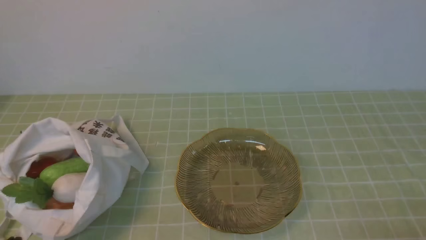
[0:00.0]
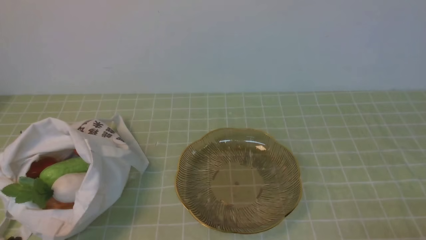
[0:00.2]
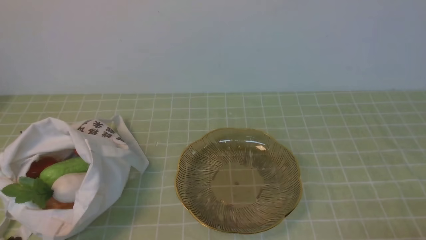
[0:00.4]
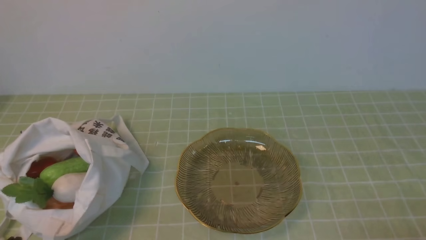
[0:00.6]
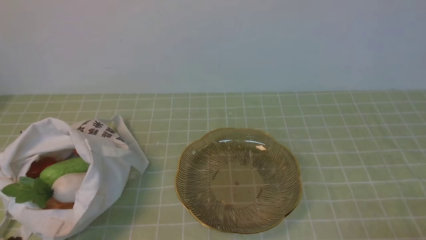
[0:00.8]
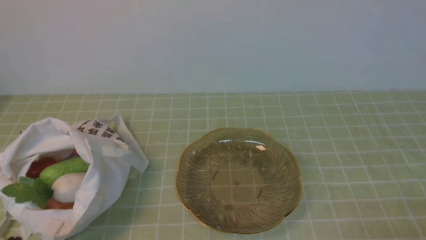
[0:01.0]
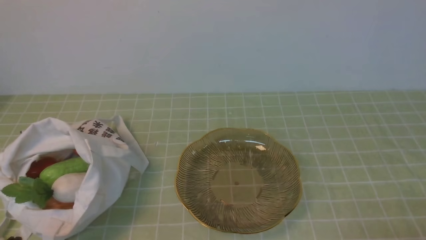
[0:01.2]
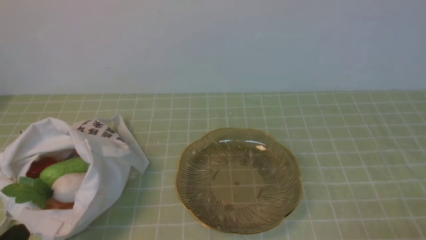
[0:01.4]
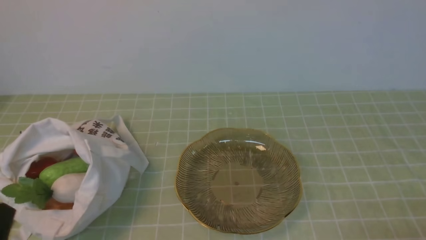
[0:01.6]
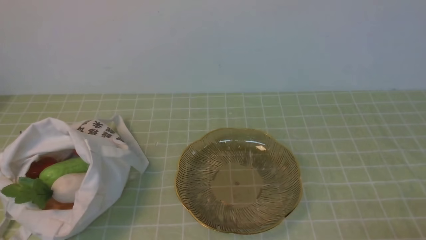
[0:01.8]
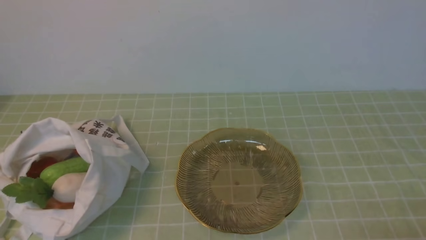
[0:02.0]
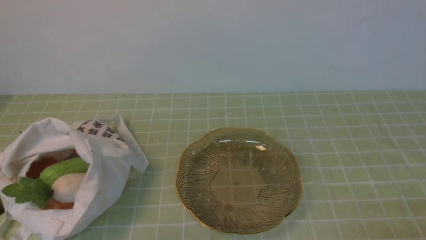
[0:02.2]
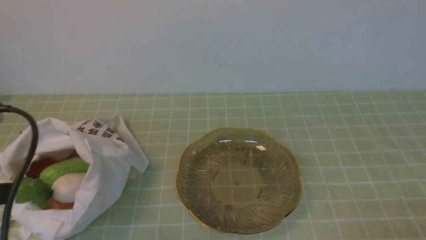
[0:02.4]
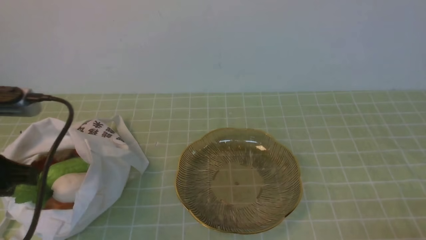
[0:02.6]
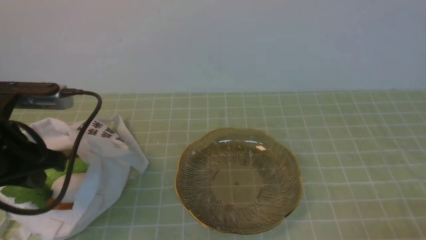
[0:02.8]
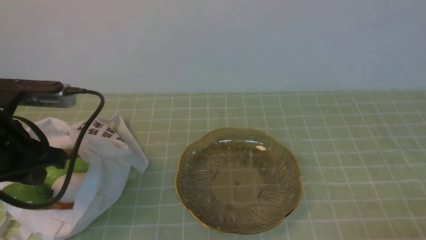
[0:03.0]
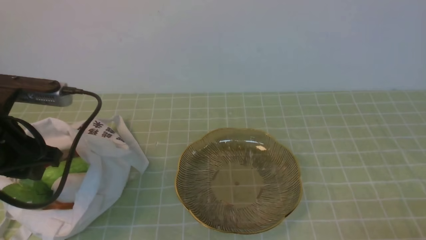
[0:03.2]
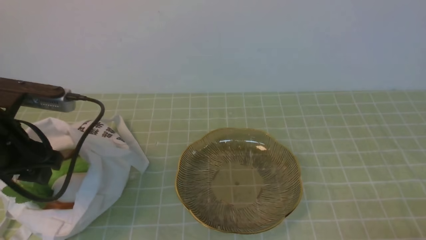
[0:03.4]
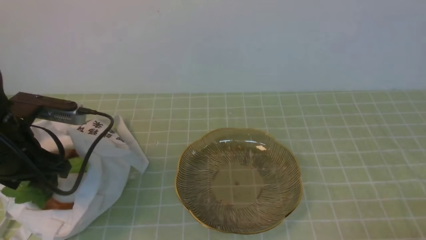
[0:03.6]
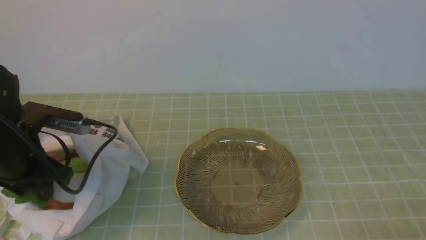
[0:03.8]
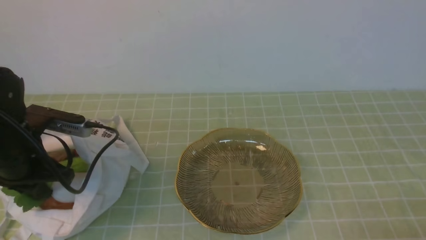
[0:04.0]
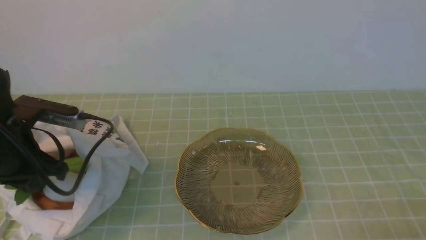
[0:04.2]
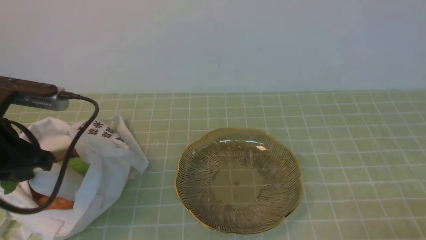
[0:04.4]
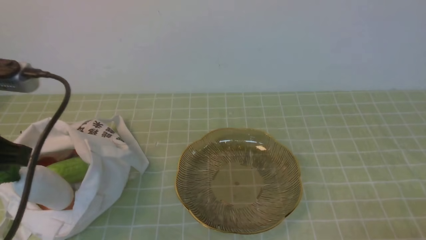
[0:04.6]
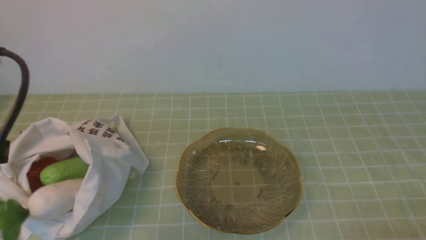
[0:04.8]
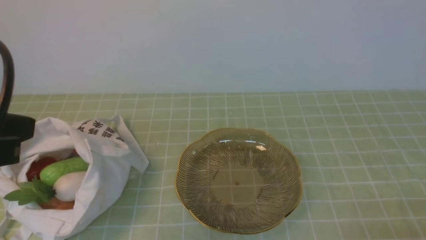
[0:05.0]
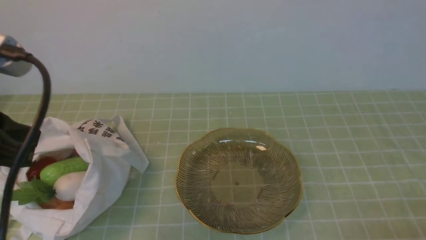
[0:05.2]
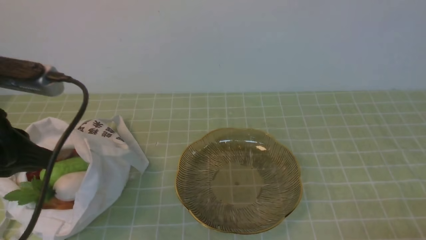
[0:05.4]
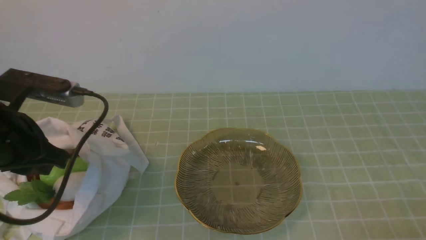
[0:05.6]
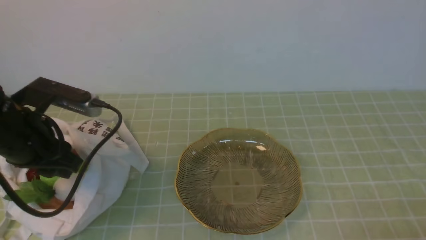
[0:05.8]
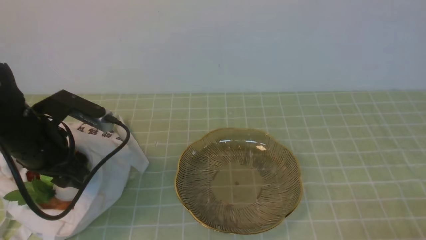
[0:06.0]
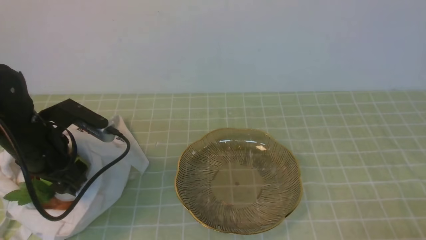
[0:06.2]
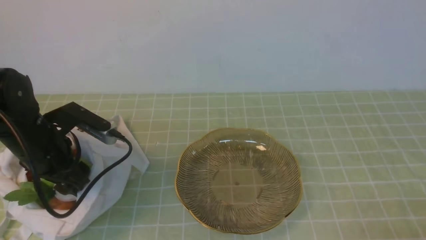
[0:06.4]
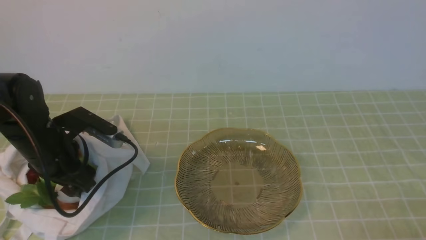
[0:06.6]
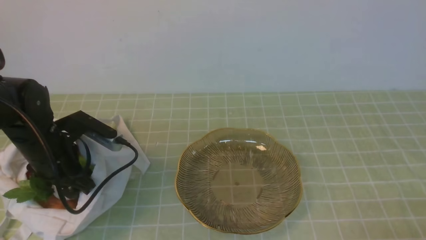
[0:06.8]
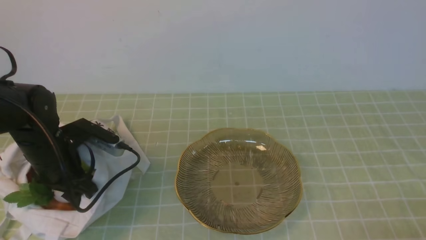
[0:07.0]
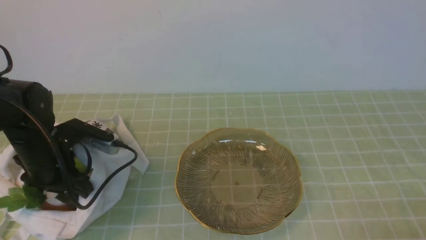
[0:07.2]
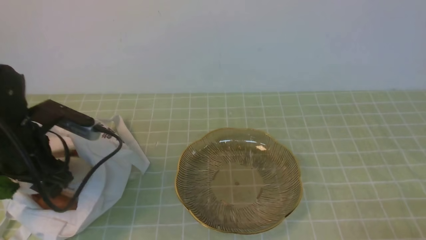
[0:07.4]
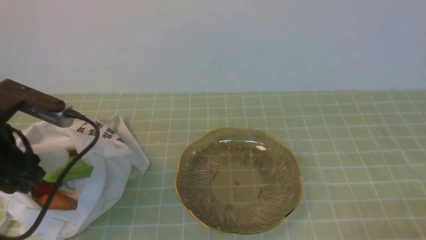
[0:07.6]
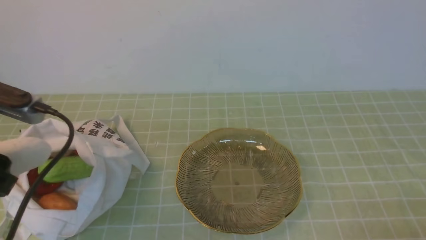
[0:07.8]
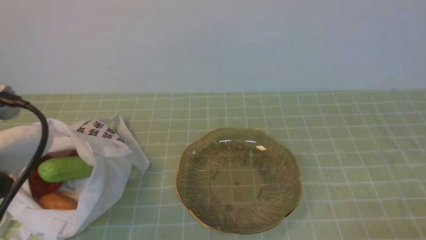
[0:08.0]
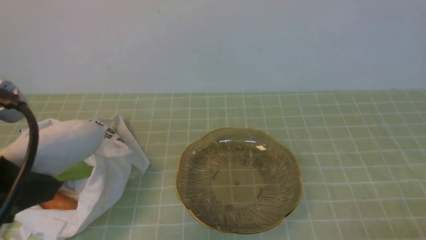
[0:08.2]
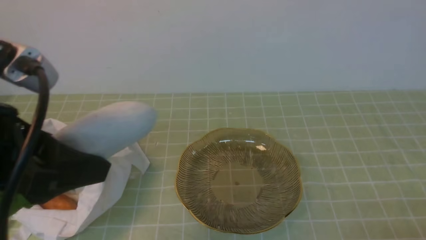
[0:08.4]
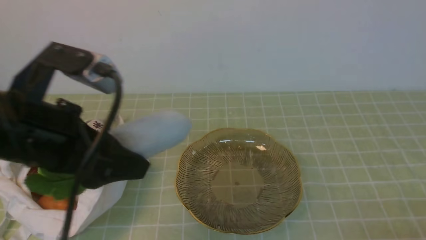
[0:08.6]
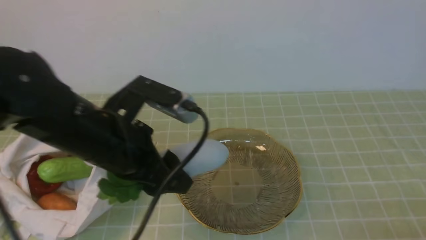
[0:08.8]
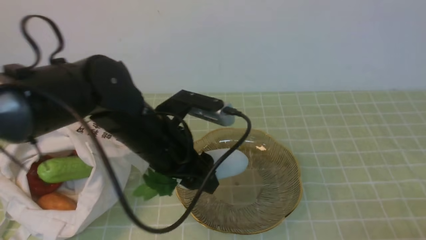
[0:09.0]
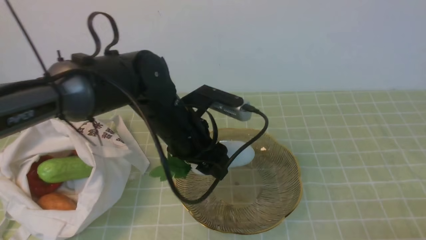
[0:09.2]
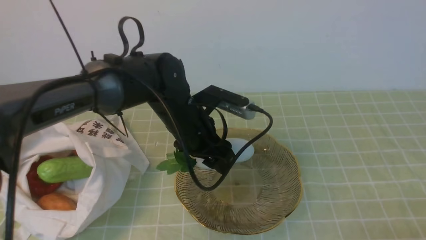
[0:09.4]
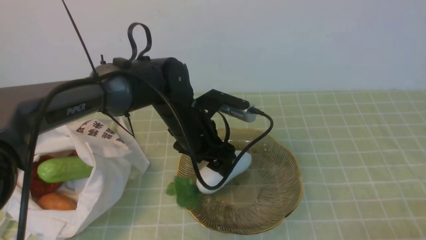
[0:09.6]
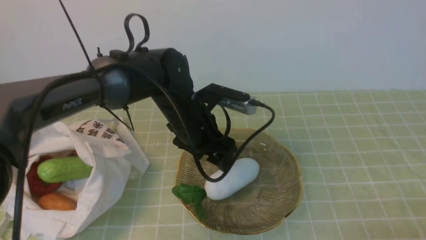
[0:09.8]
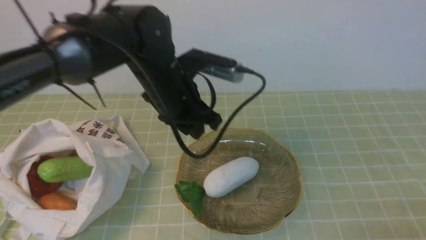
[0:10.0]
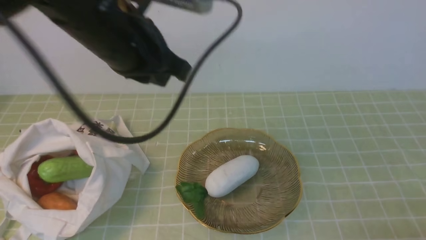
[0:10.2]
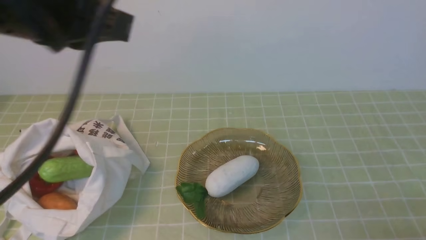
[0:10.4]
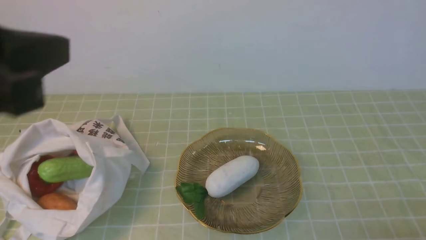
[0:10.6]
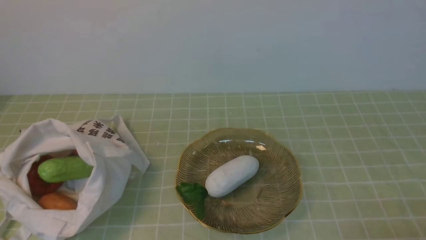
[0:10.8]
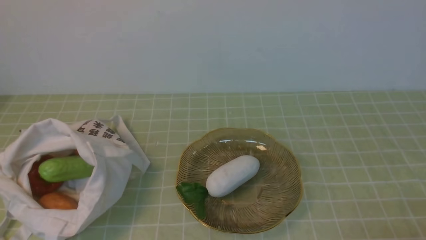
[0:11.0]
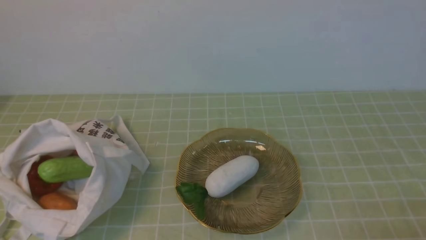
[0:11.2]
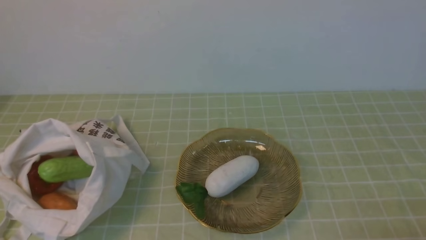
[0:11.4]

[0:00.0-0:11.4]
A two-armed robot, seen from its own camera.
Task of the whole recording: take vegetables from bag on green coffee tablecloth place on plate.
Step, 0:00.0 to 0:07.0: Grasp the radish with left gripper.
Step, 0:07.2 to 0:09.8: Place the radish on the plate with left gripper.
0:01.4 to 0:02.8: The left gripper moves forward and upward, some 20 cm.
0:02.8 to 0:04.2: The left gripper opens, then closes again.
0:04.2 to 0:05.6: The left gripper moves some 10 cm upward and comes back.
0:05.6 to 0:07.2: The left gripper travels downward and forward by roughly 10 cm, and opens up.
0:07.2 to 0:08.6: The left gripper moves upward, to the right and backward, roughly 20 cm.
0:08.6 to 0:10.0: The left gripper goes some 15 cm forward and to the right, and closes its fingers.
0:10.0 to 0:11.4: The left gripper heads backward and to the left, covering some 35 cm, and closes its fingers.

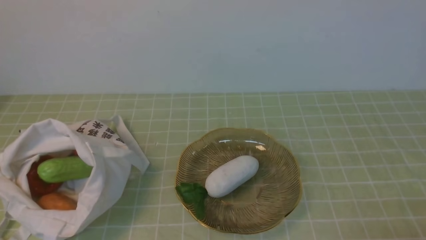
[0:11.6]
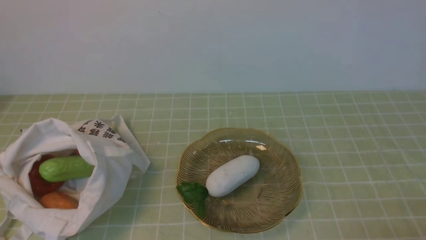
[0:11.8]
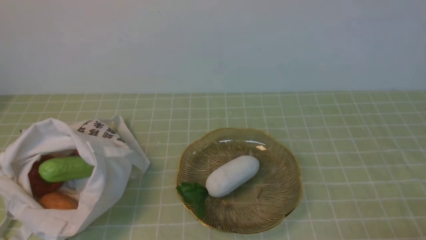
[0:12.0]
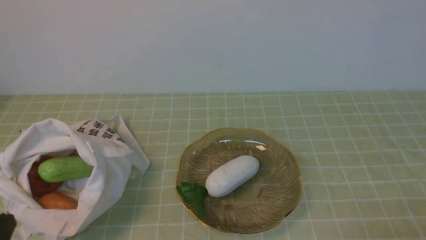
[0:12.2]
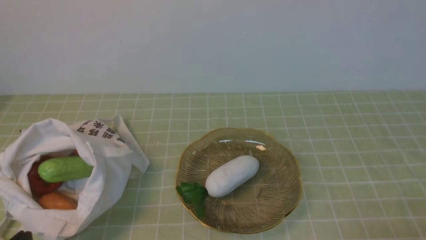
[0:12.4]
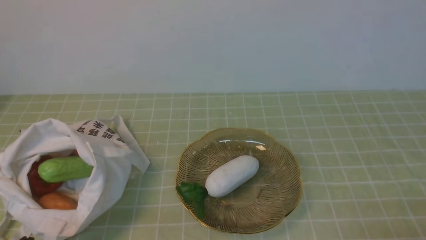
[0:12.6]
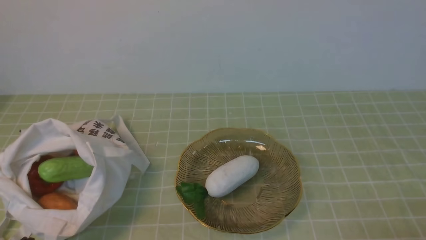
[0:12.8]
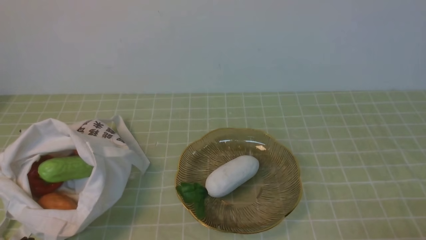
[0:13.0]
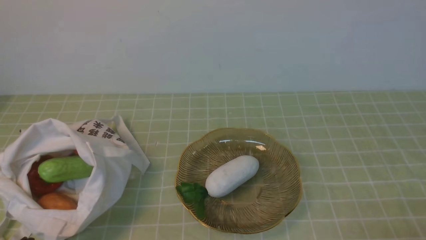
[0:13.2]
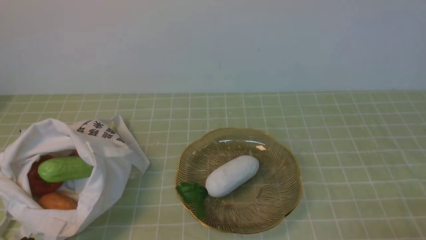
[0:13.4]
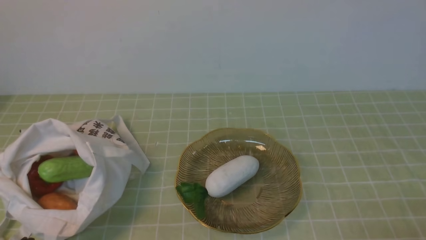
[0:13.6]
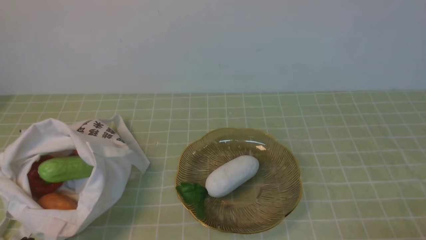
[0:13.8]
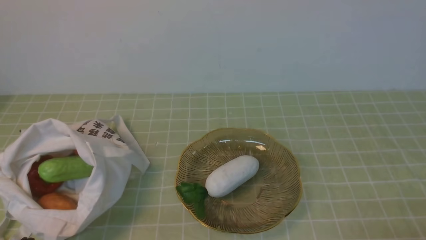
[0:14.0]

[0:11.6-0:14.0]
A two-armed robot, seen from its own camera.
Task of the whole recording: take vegetables from bag on green coffee tablecloth place on plate.
0:12.8 to 0:14.0: The two grippers keep their place.

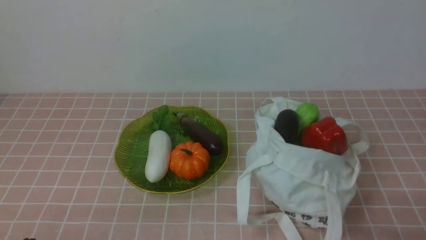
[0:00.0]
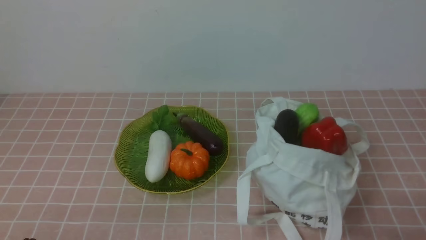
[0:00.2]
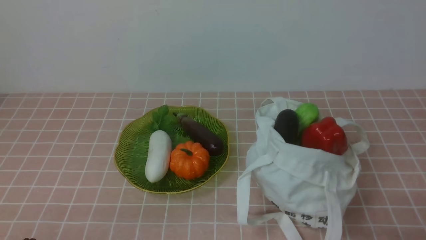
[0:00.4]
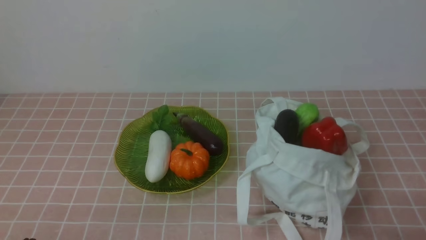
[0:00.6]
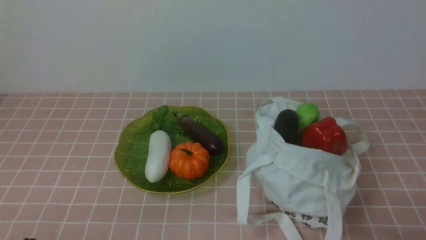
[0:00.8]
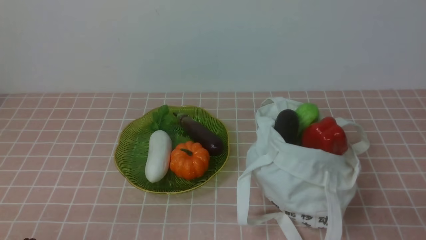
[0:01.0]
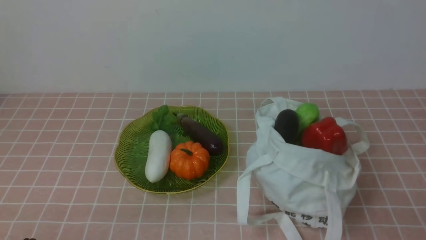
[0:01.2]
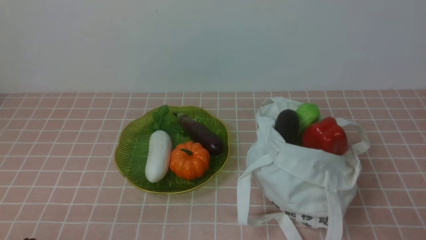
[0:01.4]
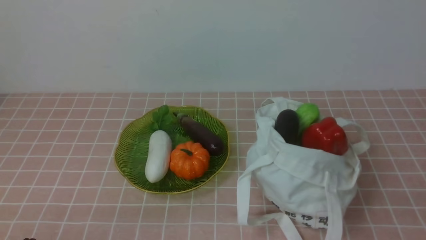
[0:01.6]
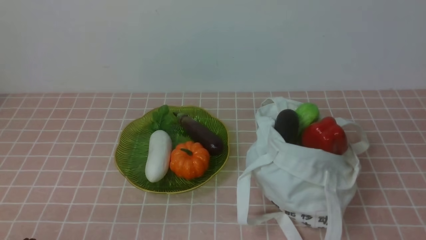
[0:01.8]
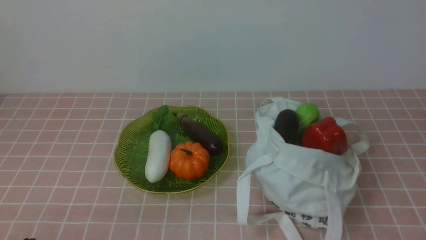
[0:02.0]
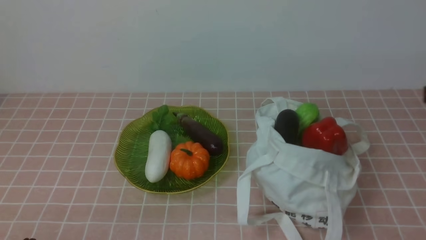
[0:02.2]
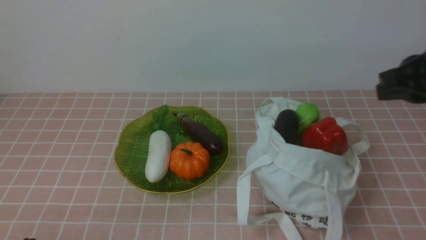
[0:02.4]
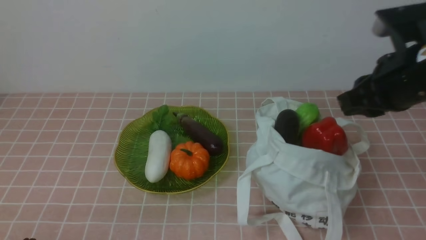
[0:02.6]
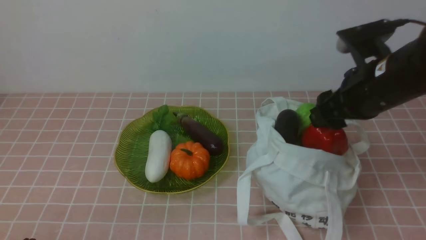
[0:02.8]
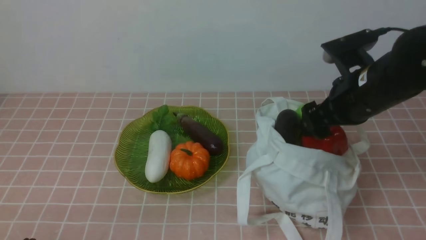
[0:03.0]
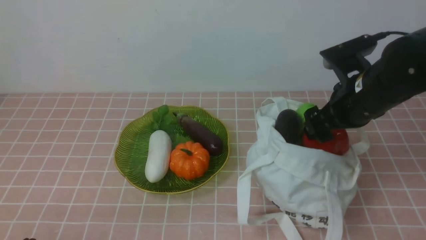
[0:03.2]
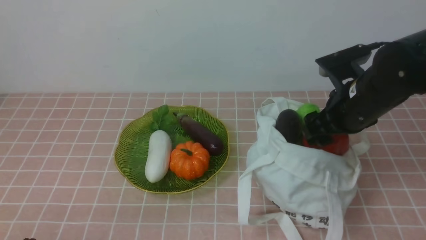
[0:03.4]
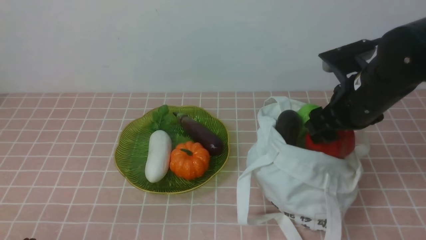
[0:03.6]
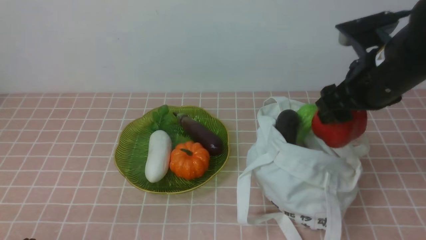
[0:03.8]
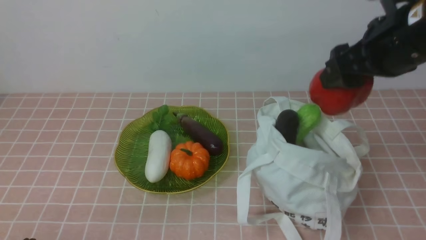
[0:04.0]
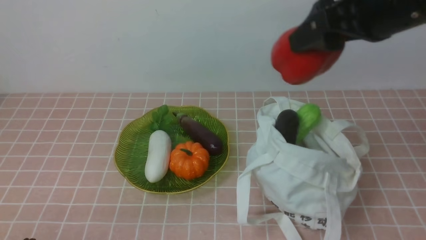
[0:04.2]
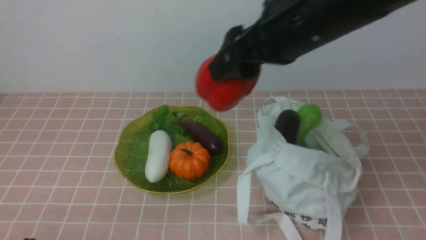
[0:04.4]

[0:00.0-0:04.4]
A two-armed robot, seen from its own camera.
Task of the whole recording: take vegetables from bag on pink coffee tablecloth place on plate.
Step, 0:00.0 to 0:03.4: Grasp the bell pepper with right gripper.
0:01.4 to 0:03.0: The right gripper moves forward and to the left, about 30 cm, and opens.
0:03.0 to 0:04.4: The right gripper goes roughly 15 cm to the left and upward.
